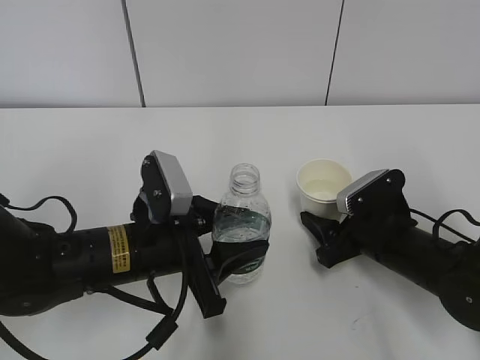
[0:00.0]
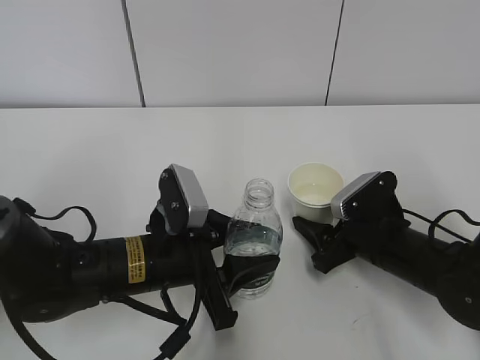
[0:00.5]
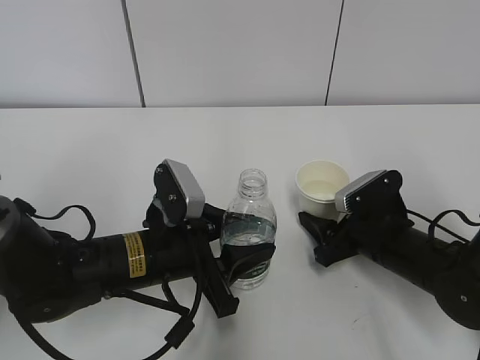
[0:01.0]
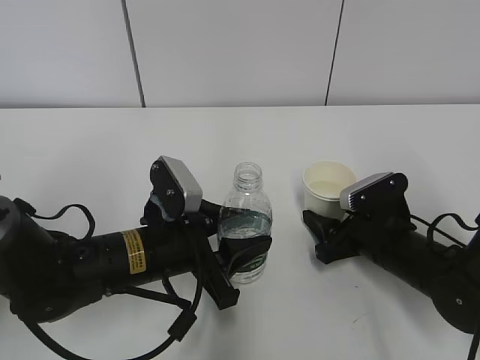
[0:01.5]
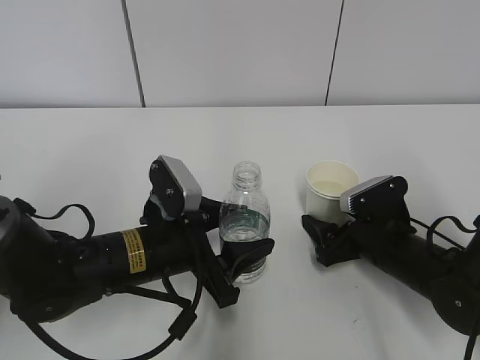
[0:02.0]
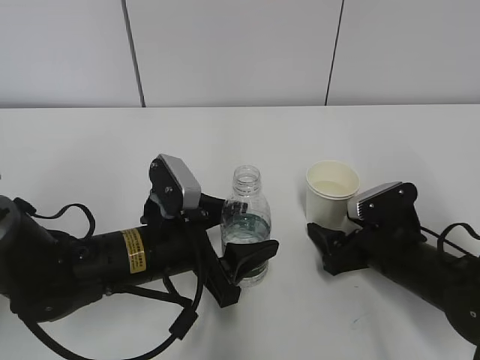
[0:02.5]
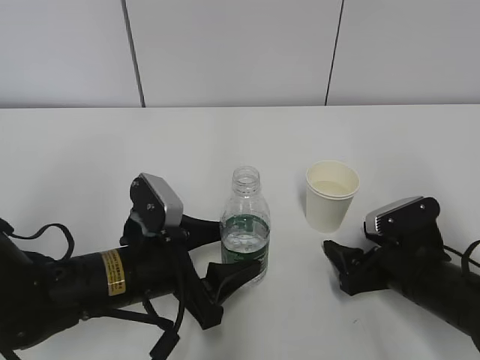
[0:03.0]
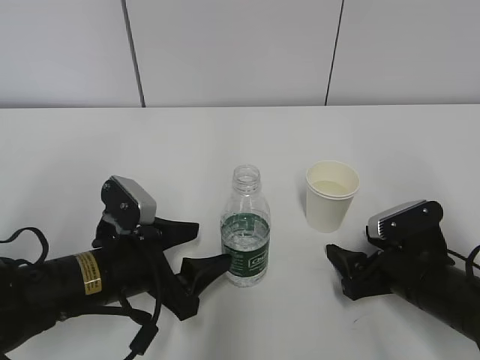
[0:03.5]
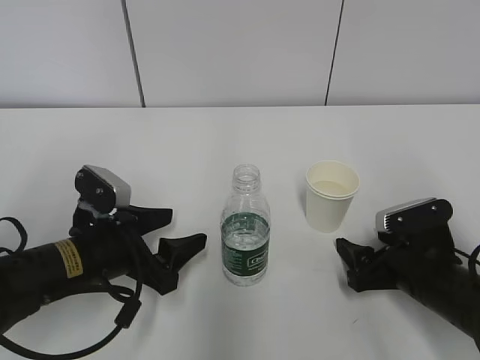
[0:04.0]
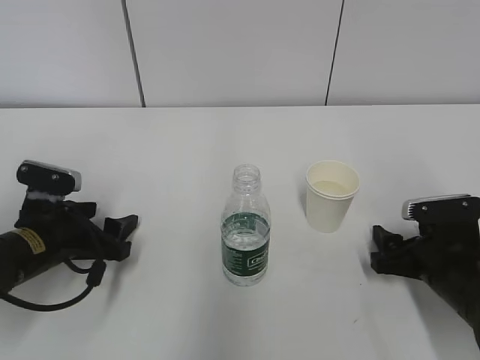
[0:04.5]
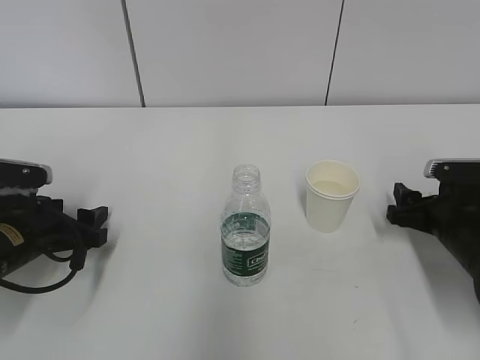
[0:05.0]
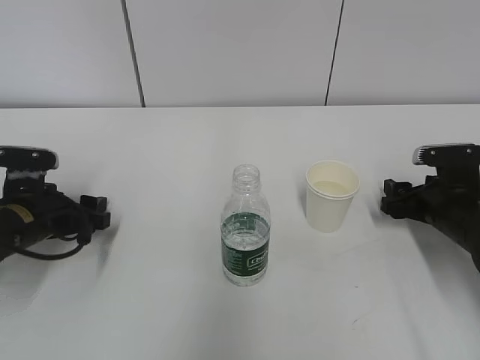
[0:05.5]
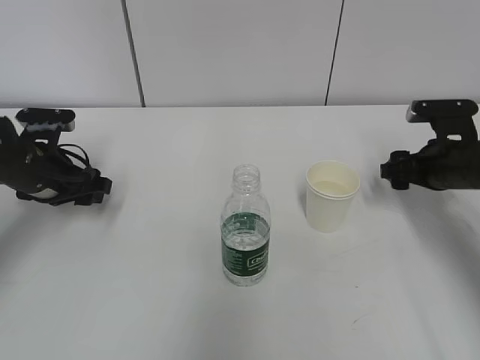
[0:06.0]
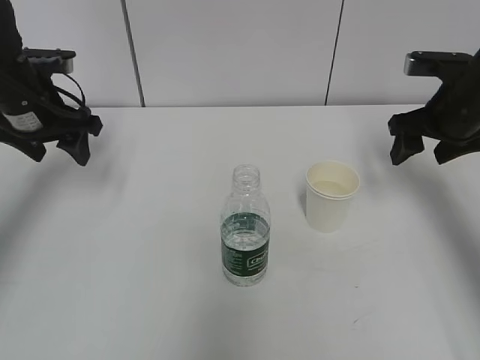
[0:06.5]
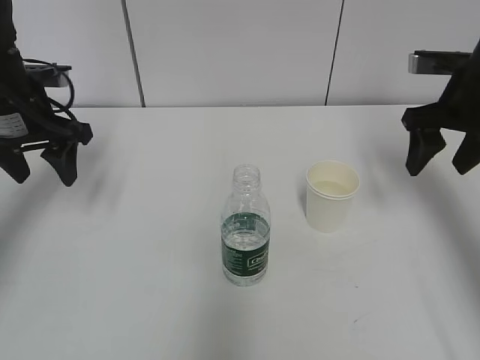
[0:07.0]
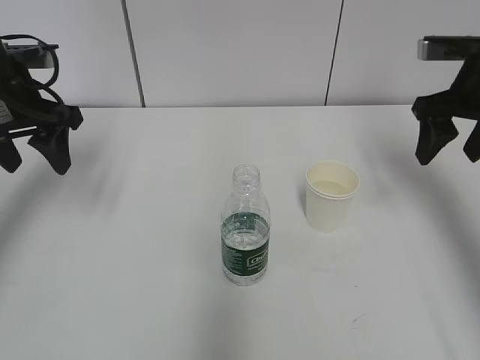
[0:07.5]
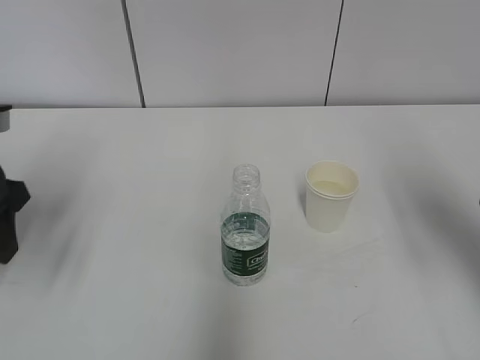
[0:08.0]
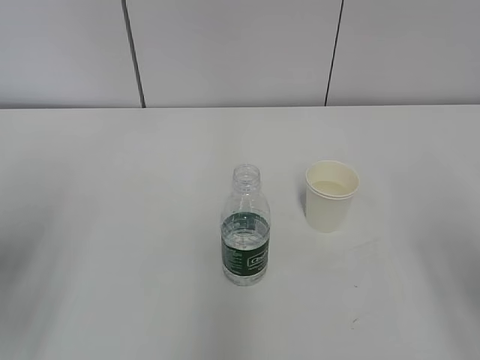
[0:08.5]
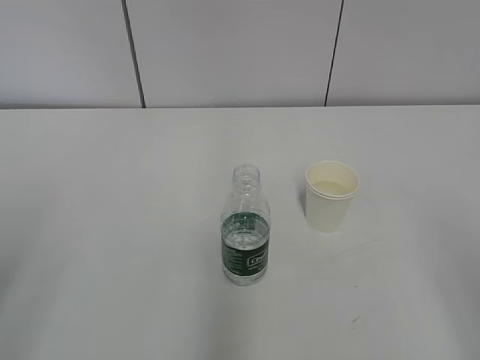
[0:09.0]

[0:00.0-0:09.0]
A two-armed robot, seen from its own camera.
0:00.0 to 0:02.0: The right gripper opens its fingers.
0:02.0 to 0:04.5: The left gripper goes some 15 cm to the left; the right gripper moves about 5 cm.
0:04.5 to 0:07.0: Both grippers travel together upward and forward, about 20 cm.
0:07.0 to 0:09.0: The grippers both shift backward by roughly 30 cm.

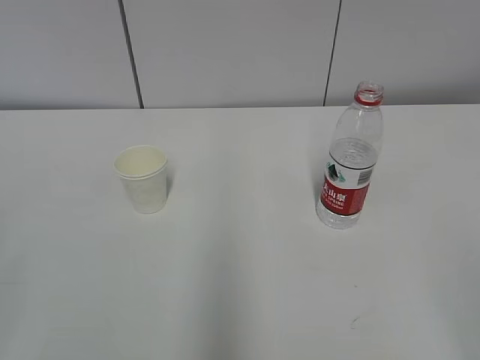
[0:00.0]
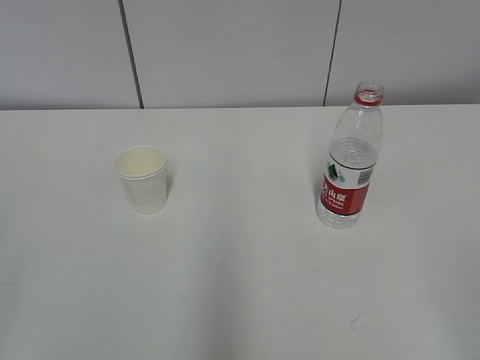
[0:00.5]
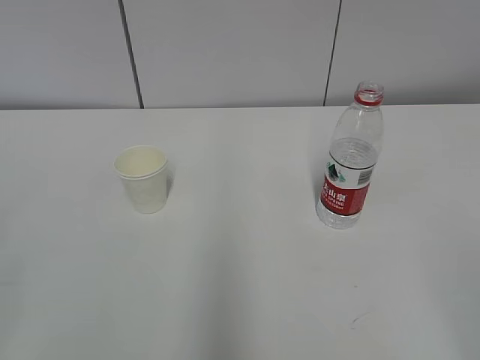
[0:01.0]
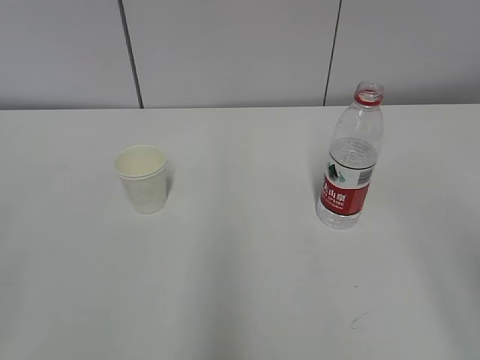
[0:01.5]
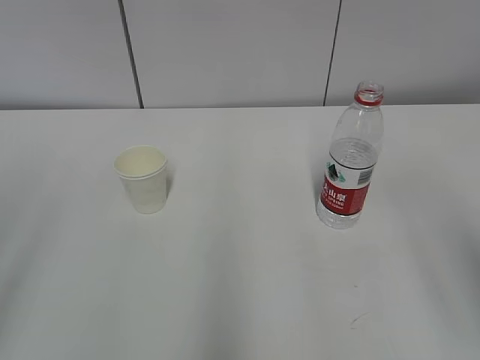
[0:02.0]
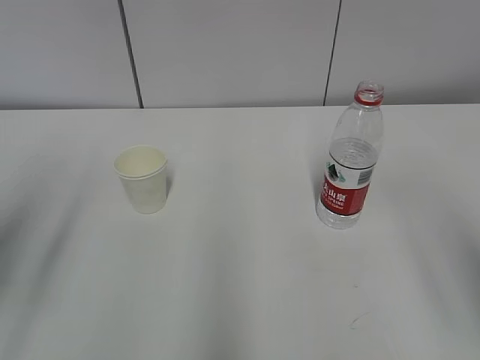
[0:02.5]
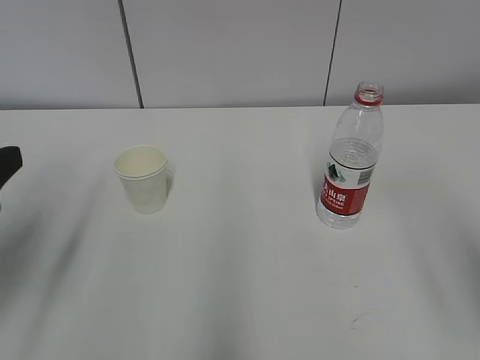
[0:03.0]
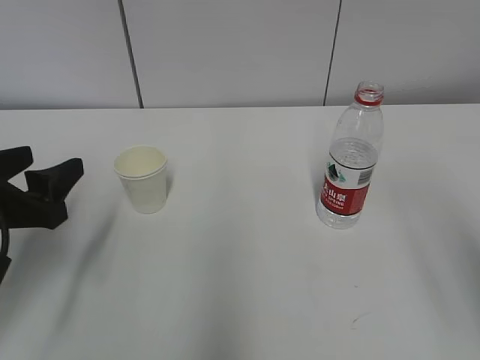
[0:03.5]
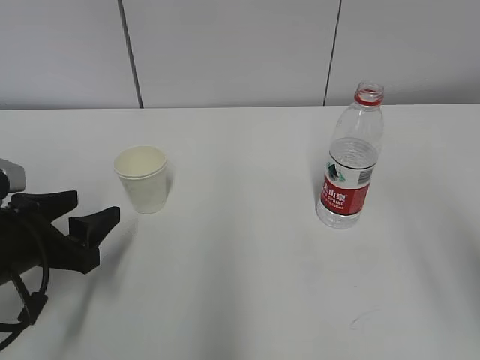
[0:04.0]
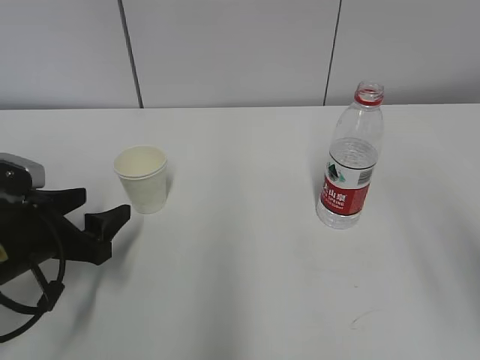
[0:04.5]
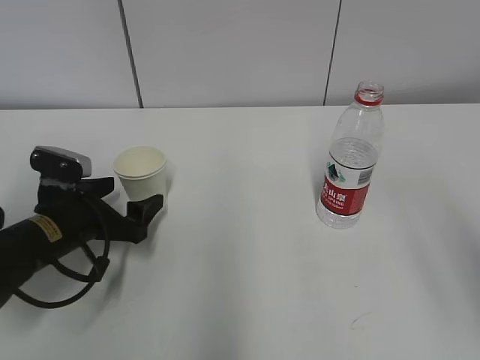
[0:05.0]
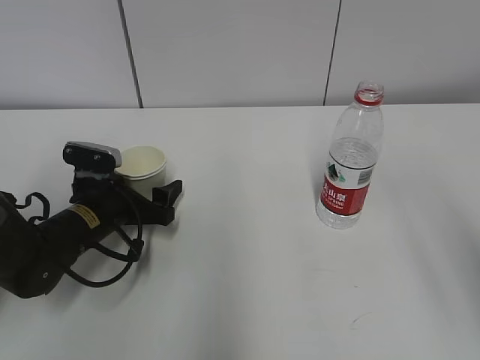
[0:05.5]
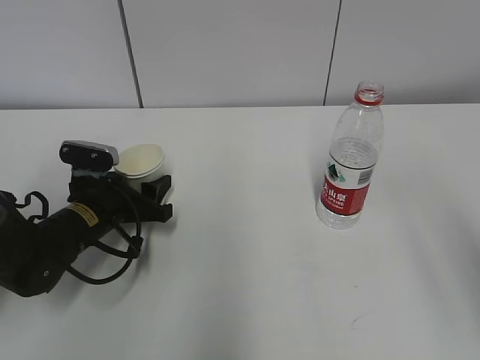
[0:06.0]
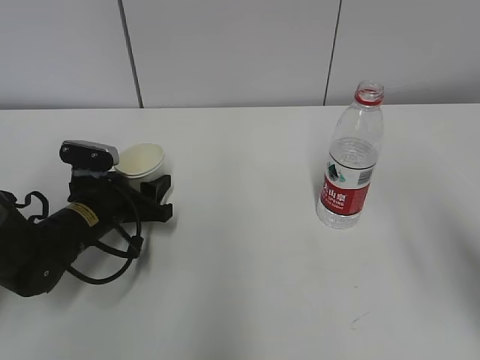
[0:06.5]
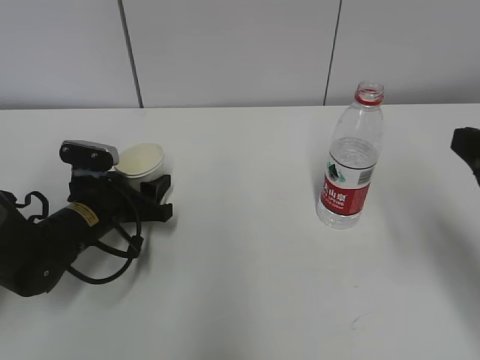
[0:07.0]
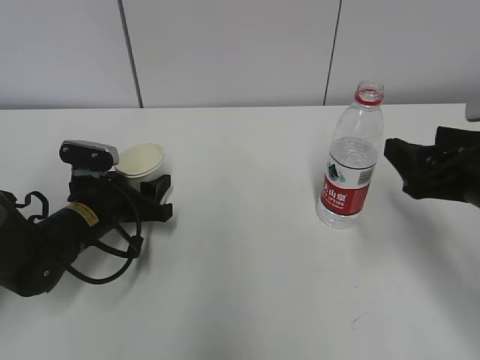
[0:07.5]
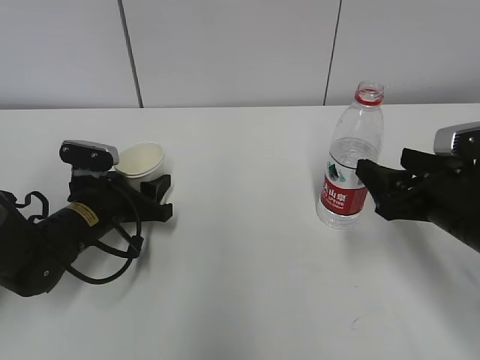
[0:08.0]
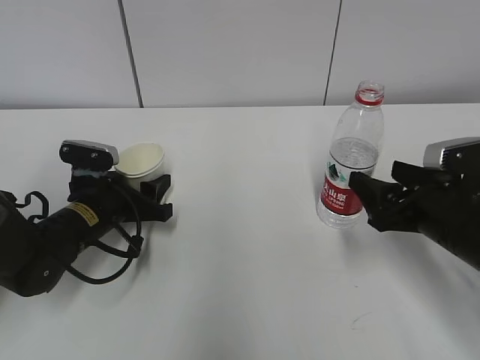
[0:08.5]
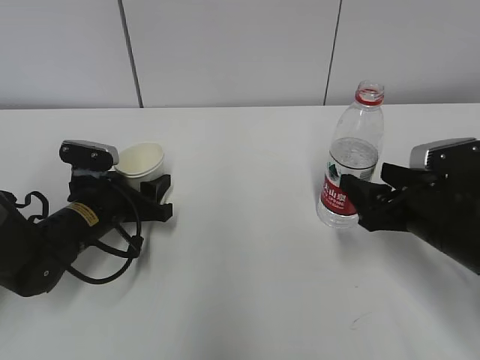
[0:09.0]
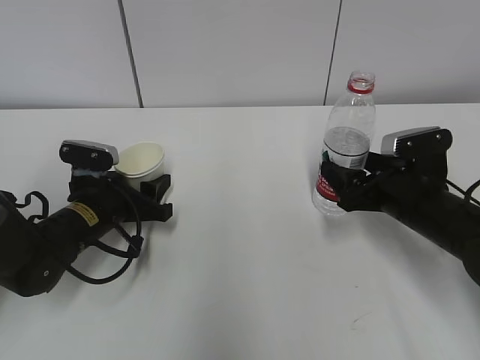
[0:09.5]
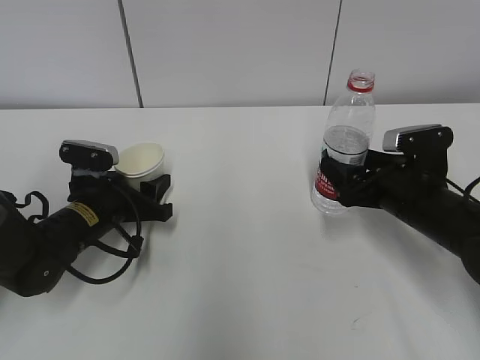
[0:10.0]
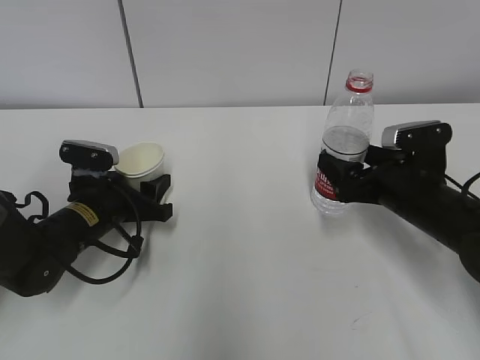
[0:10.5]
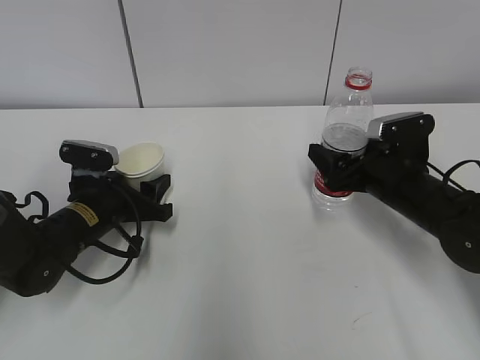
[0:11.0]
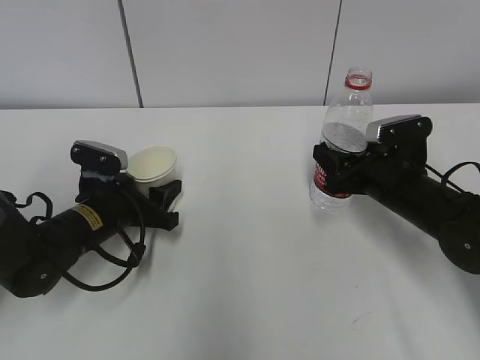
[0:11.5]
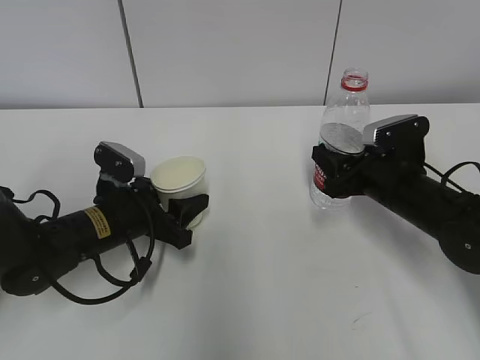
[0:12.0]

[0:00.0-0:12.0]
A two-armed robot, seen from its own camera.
Step, 0:00.0 to 0:09.0: Grab the paper cup with the left hand.
0:02.0 to 0:04.0: The left gripper heads downward and forward, covering roughly 25 cm.
0:04.0 to 0:06.0: The left gripper heads forward, downward and to the right, covering roughly 15 cm, and closes.
0:06.0 to 0:08.0: The right gripper heads forward and downward, covering approximately 25 cm.
0:08.0 to 0:10.0: The right gripper goes approximately 5 cm forward.
0:10.0 to 0:12.0: The right gripper closes.

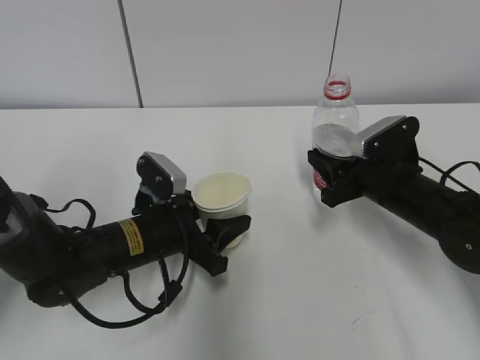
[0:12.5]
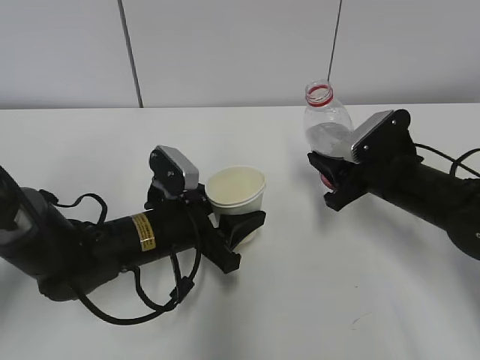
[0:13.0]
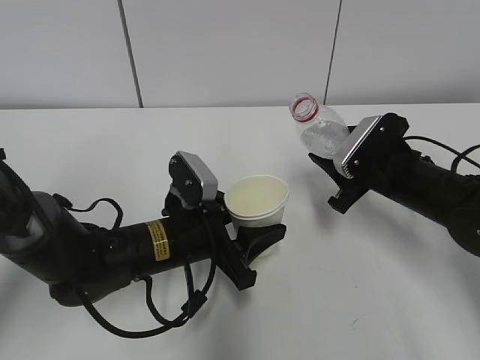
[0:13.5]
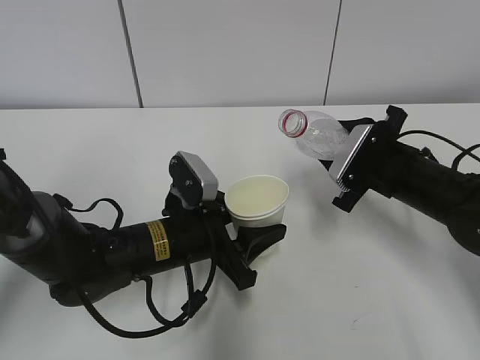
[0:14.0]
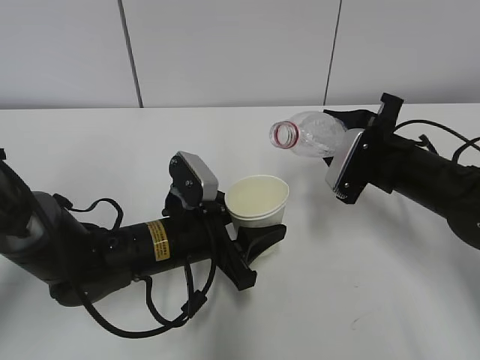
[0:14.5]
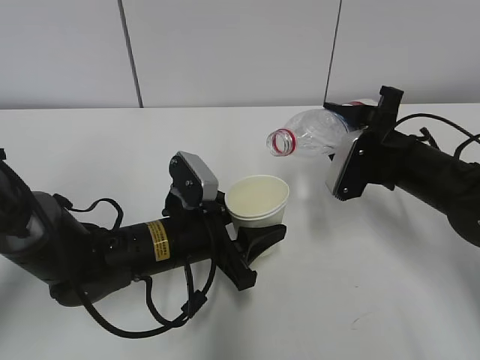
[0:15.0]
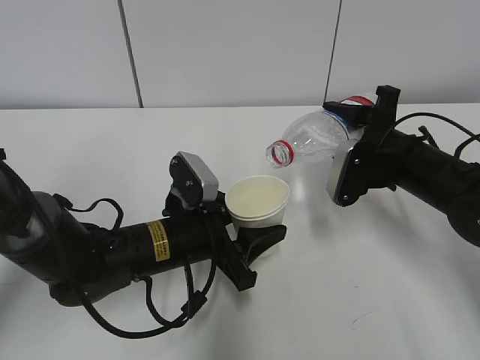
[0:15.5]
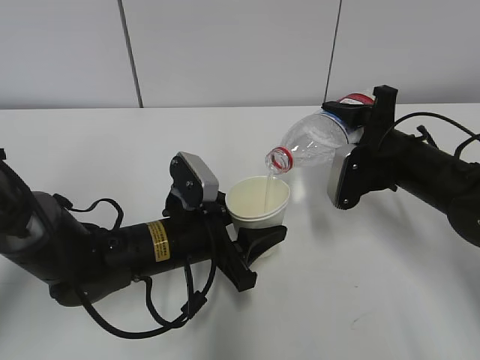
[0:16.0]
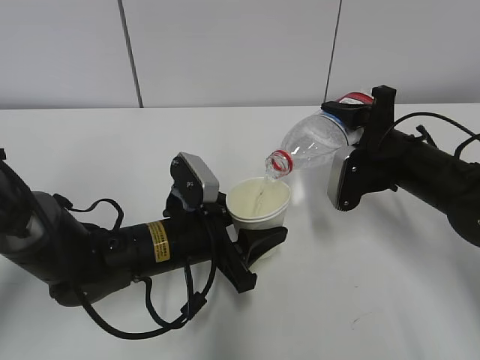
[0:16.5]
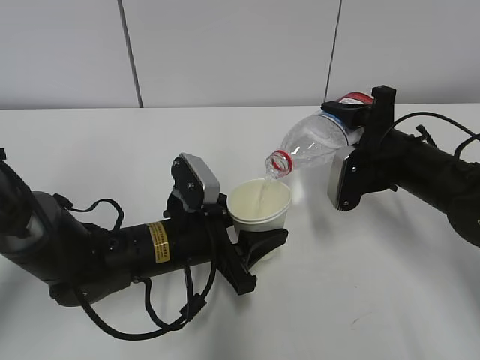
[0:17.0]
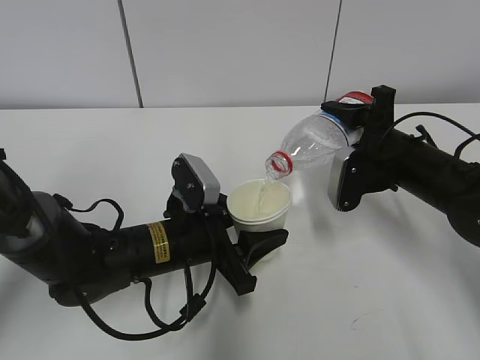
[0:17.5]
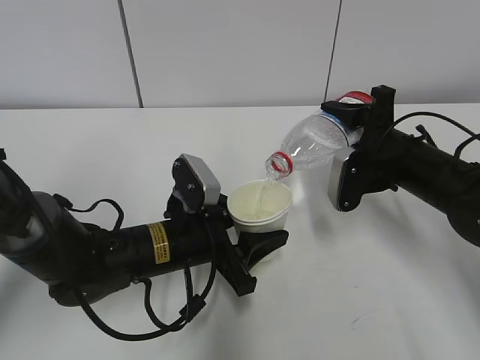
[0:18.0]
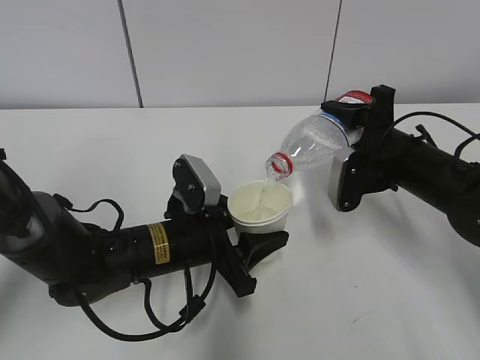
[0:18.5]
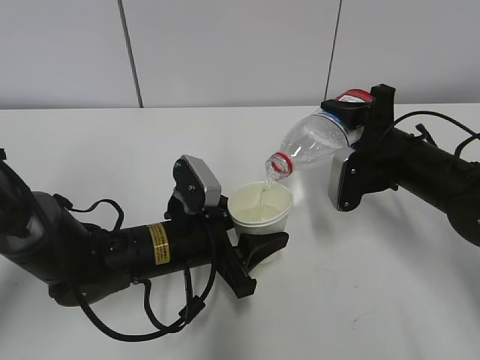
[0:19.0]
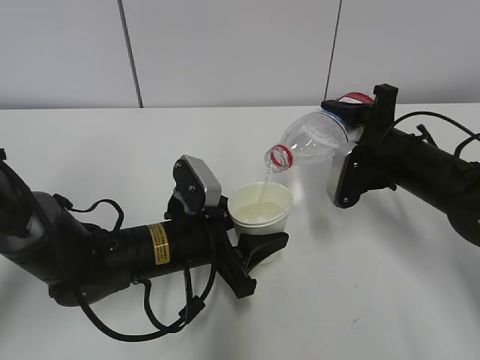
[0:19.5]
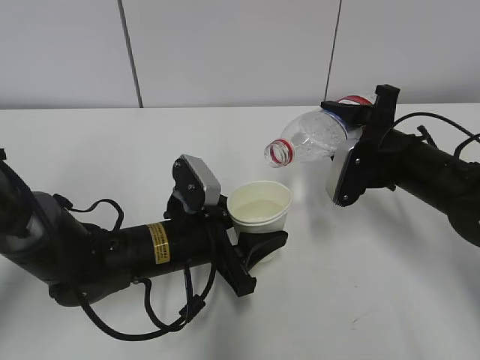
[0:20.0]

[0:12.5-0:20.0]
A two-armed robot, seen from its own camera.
Step, 0:13.5 to 0:16.0: Pour water with the right hand.
0:16.5 to 0:18.0: Both grippers stay about where they are.
0:18.0 to 0:20.0: The grippers make only small movements.
